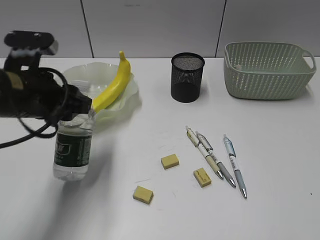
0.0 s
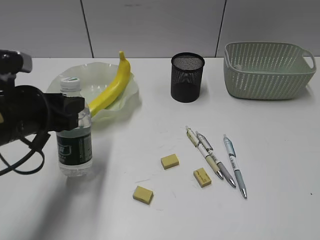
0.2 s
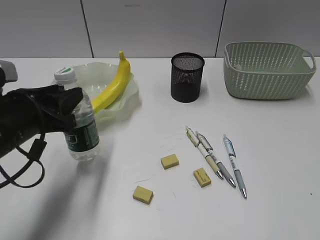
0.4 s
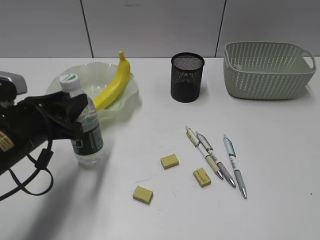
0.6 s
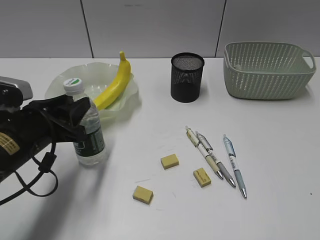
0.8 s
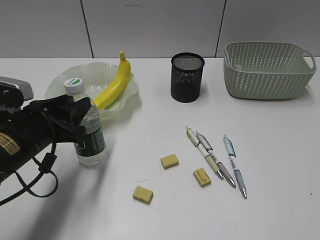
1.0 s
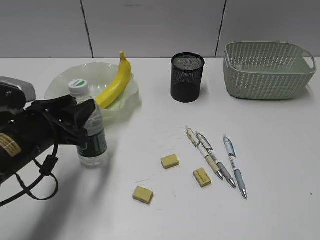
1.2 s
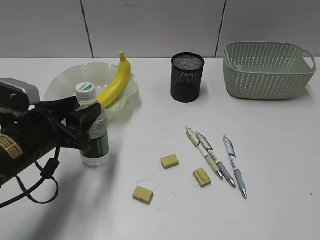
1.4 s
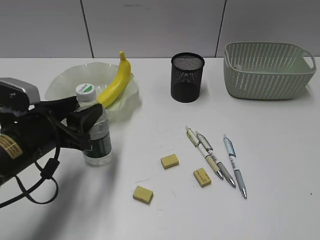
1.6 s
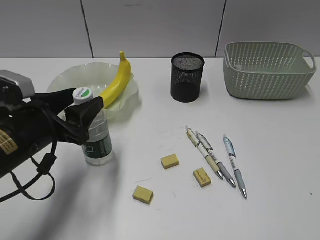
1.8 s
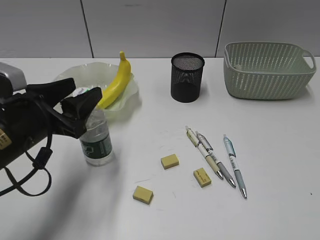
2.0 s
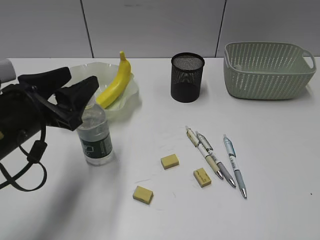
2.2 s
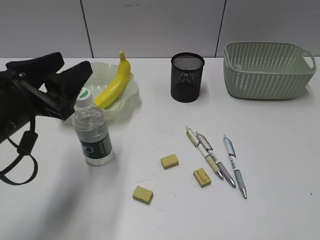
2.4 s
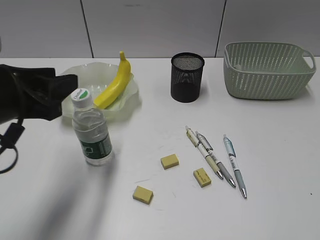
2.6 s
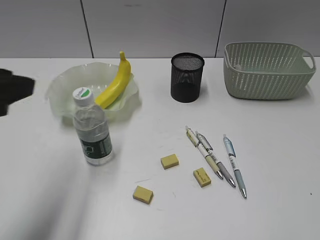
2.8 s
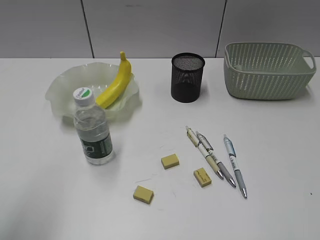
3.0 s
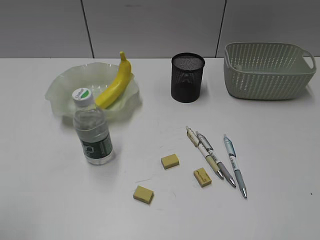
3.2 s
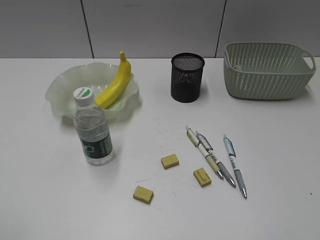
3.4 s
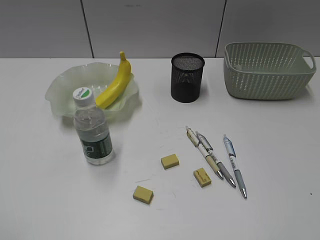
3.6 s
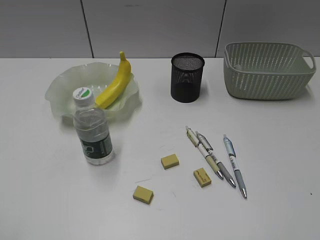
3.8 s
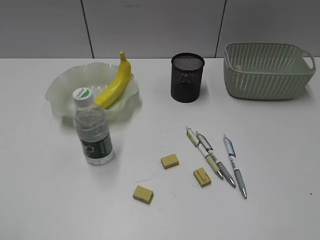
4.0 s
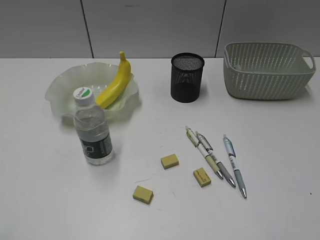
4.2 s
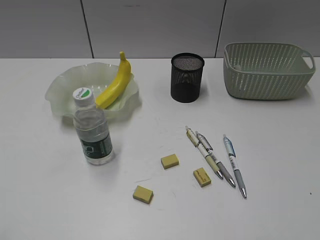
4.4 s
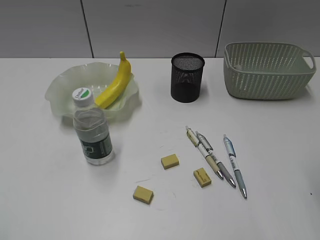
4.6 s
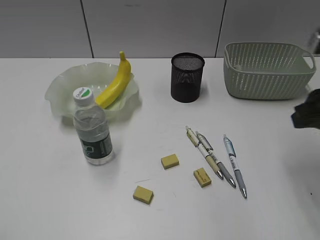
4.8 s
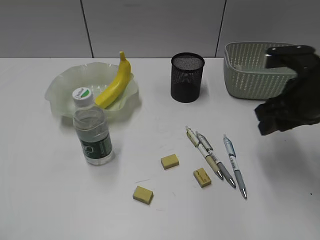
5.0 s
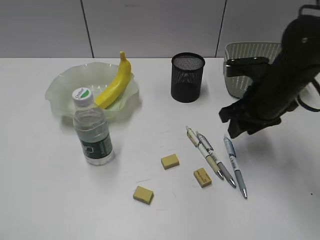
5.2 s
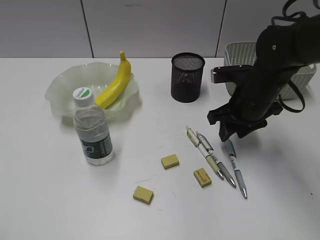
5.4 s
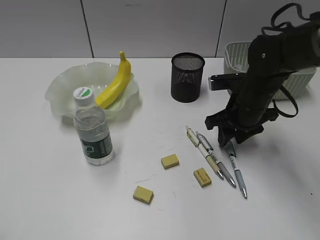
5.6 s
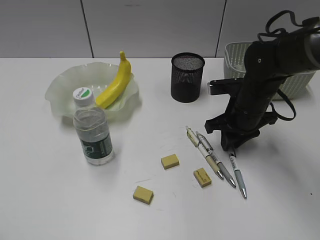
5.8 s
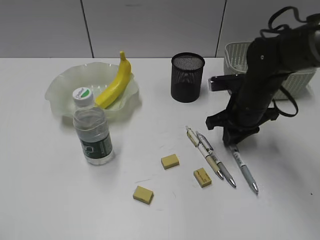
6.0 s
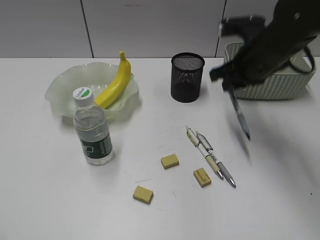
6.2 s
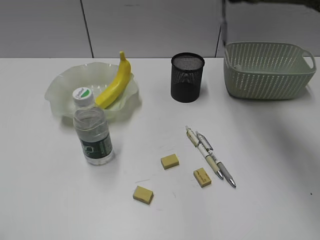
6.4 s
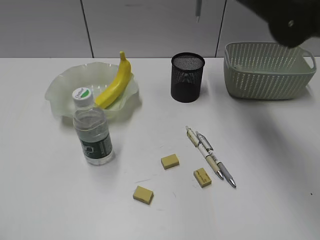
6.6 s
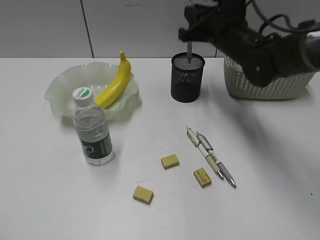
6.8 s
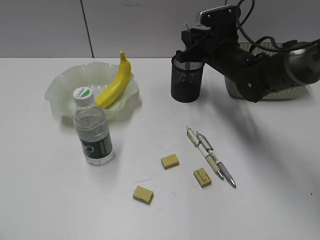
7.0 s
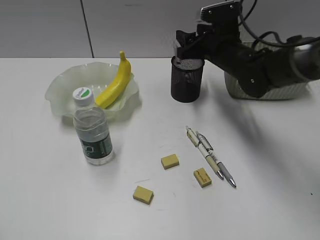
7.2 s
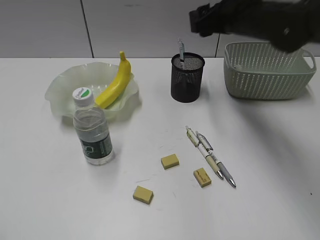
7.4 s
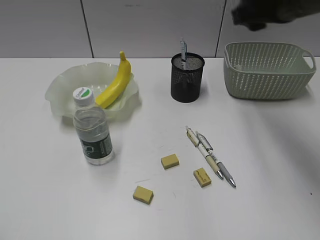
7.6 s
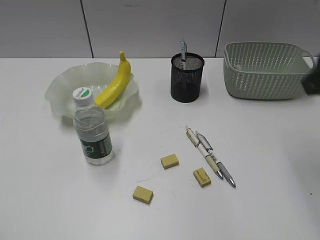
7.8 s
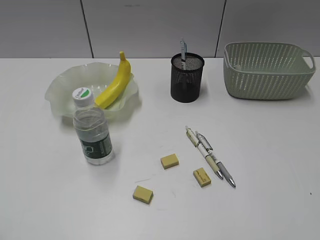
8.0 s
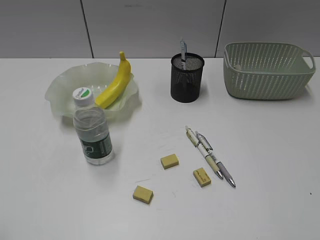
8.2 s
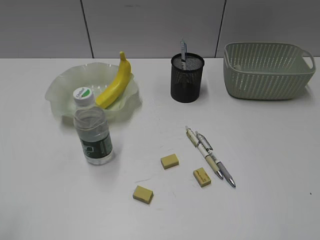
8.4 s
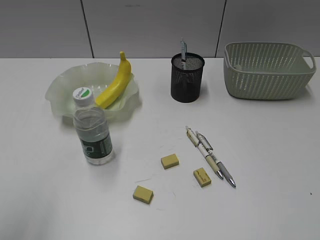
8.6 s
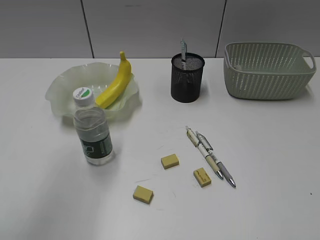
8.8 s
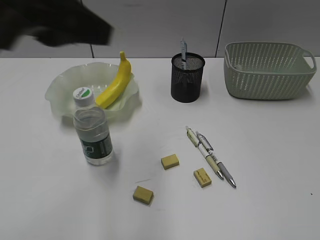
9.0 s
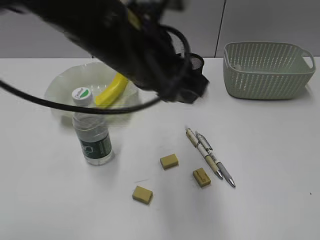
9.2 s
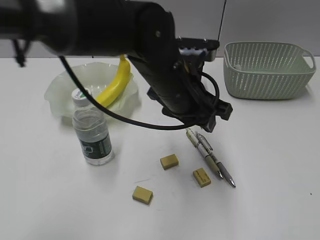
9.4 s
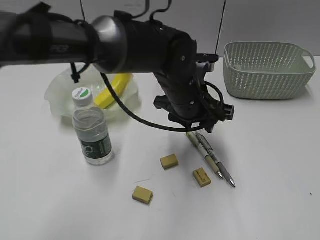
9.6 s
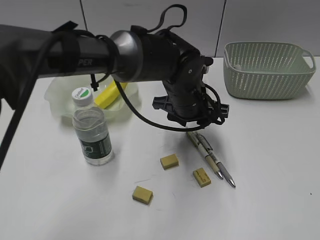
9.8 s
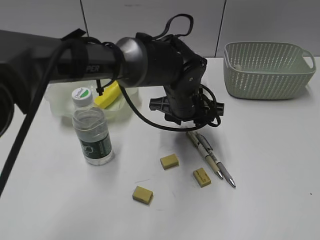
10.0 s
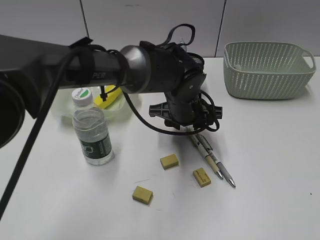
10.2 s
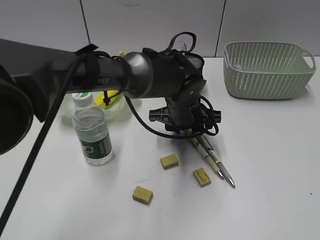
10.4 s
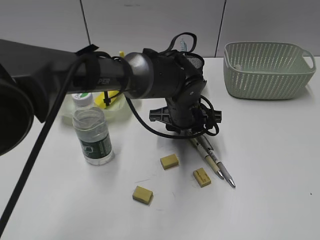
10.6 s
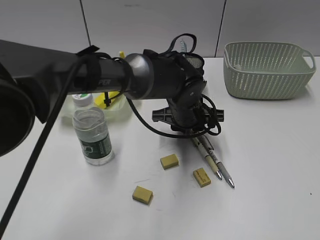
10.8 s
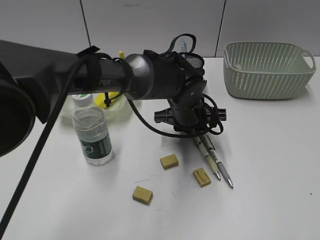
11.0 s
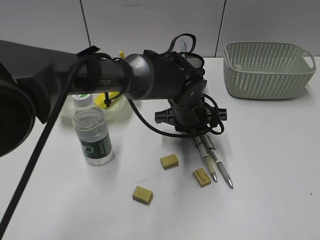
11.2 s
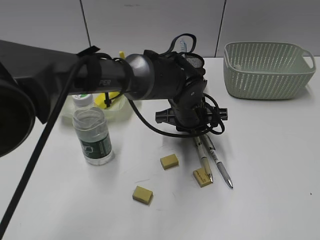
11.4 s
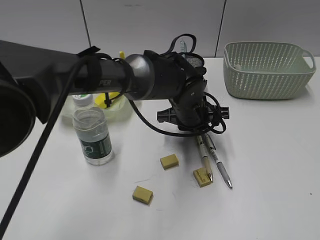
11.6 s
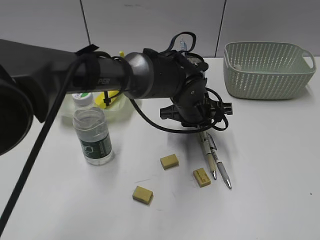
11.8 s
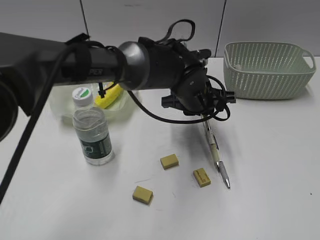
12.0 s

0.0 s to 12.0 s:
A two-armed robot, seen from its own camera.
Step, 0.0 to 2.0 s: Stand the bottle with left gripper.
Step, 2.2 to 5.8 s: Grasp the blue pen with right gripper.
Step, 6.0 to 7.2 s: Place the blue pen in pen holder with right gripper.
Step, 7.4 to 11.4 s: Grasp the yellow pen with left gripper.
0.0 to 1.6 s: The left gripper shifts some 5 cm downward.
1.6 to 3.0 s: The left gripper heads upward, backward and to the left, covering approximately 20 cm.
3.0 to 4.4 s: The left gripper heads backward and to the left, covering some 15 cm.
4.4 to 6.0 s: The right gripper travels forward, downward and to the left by approximately 35 cm, and opens, then closes again.
6.0 to 7.6 s: The right gripper moves up and down over approximately 20 cm, changing direction 2 times, and opens.
7.6 to 9.0 s: The left gripper travels forward and to the right by roughly 25 cm. The right gripper goes some 35 cm backward and to the right.
9.0 to 10.4 s: The left gripper shifts roughly 35 cm downward, to the right and forward.
10.4 to 12.0 s: The left gripper closes its fingers.

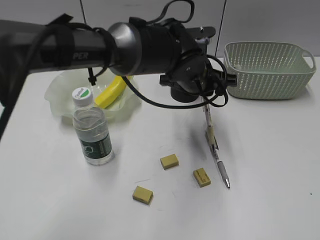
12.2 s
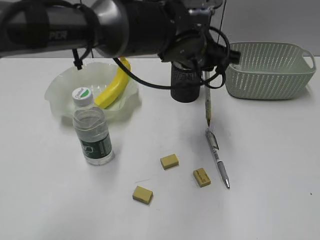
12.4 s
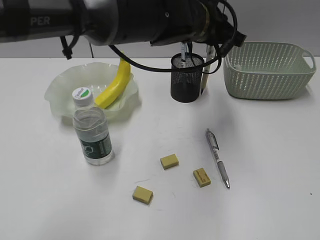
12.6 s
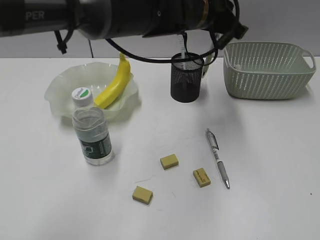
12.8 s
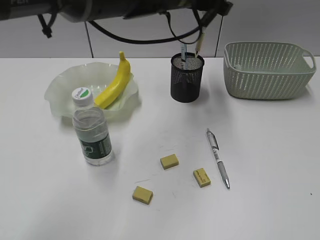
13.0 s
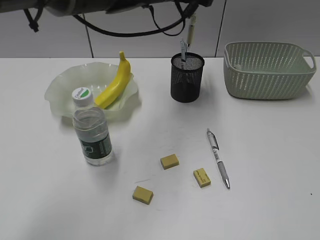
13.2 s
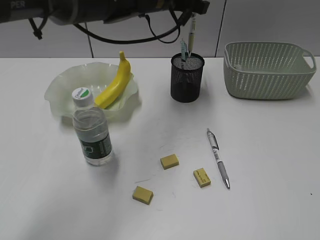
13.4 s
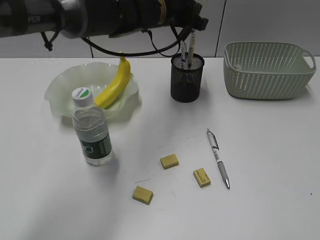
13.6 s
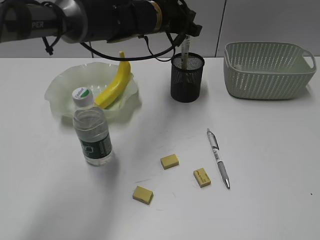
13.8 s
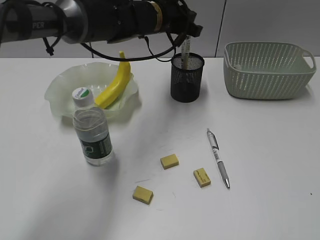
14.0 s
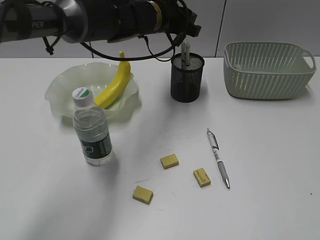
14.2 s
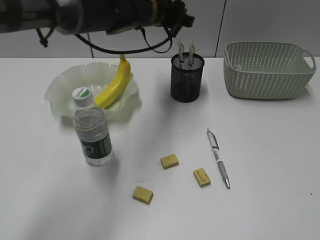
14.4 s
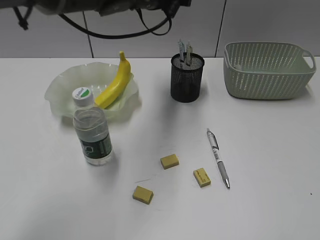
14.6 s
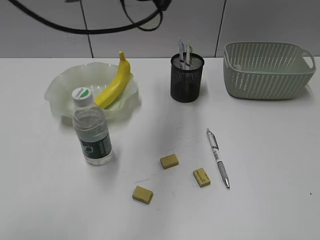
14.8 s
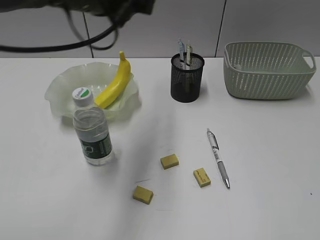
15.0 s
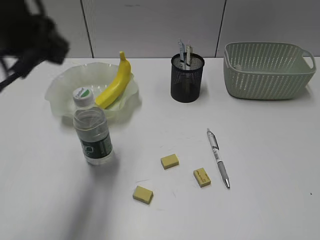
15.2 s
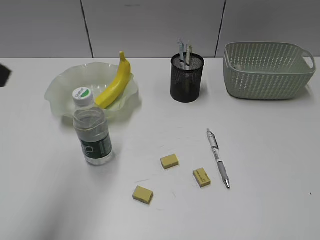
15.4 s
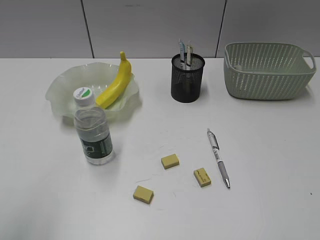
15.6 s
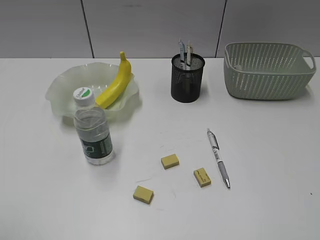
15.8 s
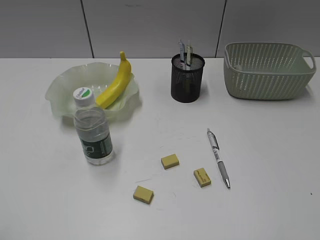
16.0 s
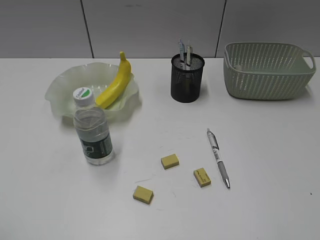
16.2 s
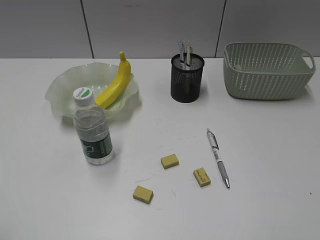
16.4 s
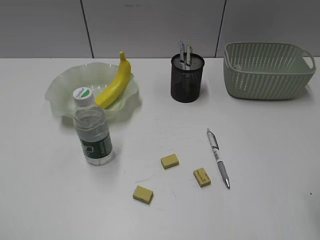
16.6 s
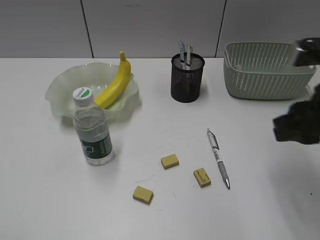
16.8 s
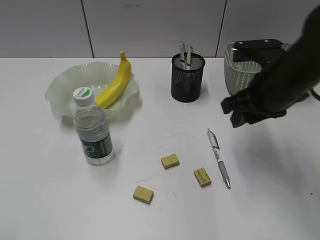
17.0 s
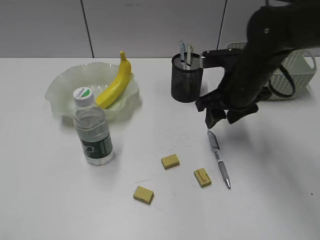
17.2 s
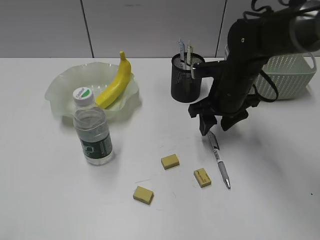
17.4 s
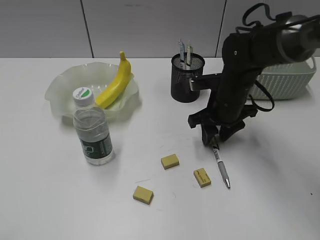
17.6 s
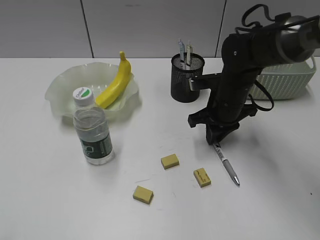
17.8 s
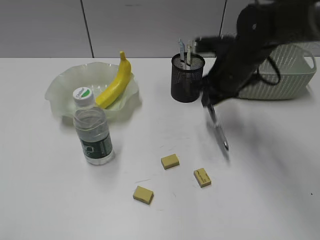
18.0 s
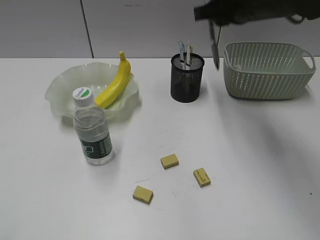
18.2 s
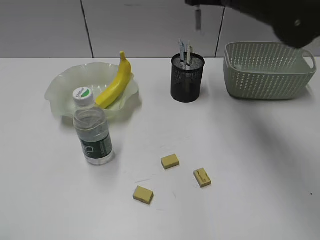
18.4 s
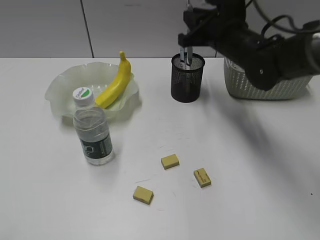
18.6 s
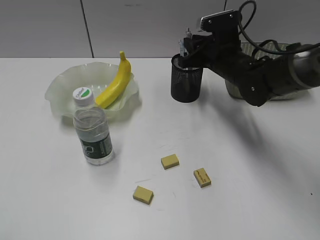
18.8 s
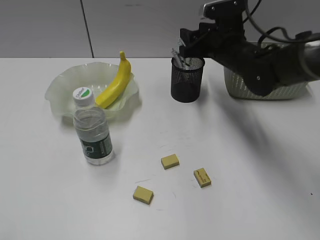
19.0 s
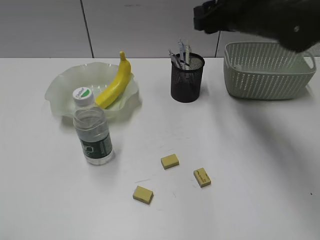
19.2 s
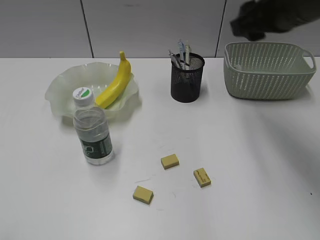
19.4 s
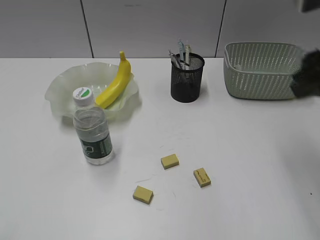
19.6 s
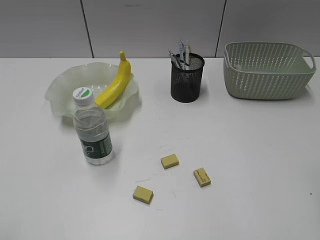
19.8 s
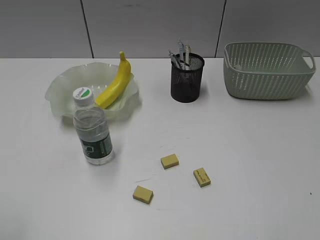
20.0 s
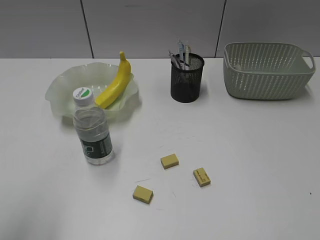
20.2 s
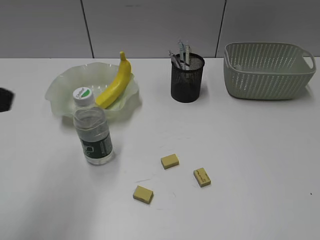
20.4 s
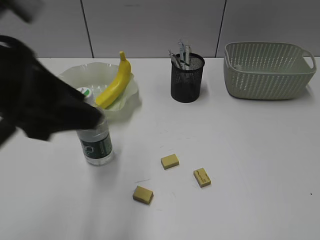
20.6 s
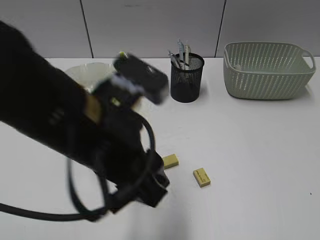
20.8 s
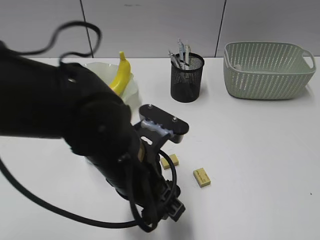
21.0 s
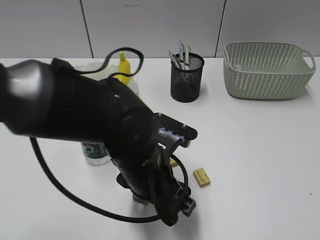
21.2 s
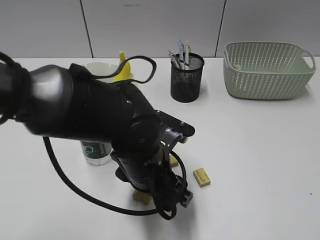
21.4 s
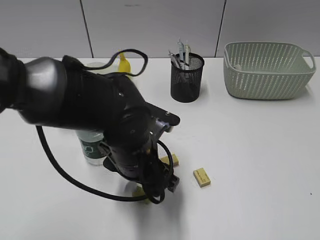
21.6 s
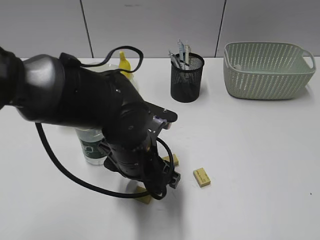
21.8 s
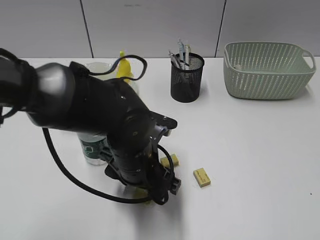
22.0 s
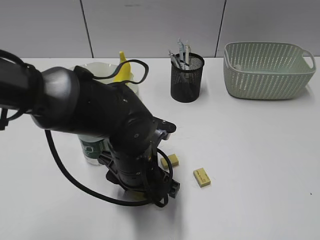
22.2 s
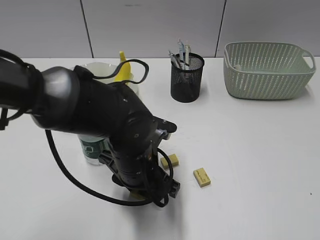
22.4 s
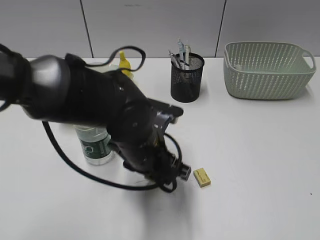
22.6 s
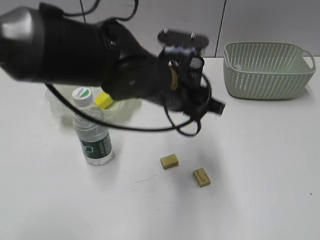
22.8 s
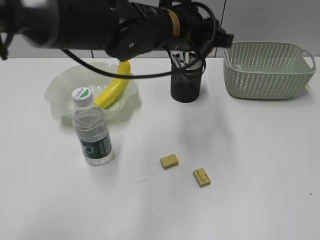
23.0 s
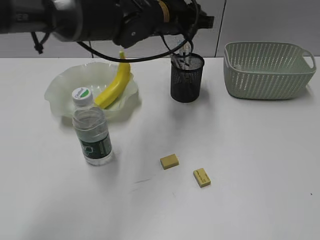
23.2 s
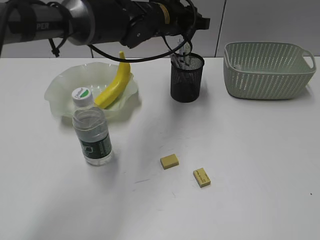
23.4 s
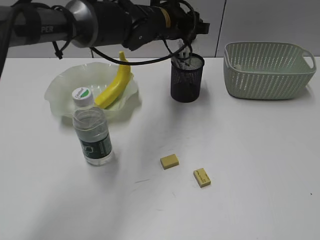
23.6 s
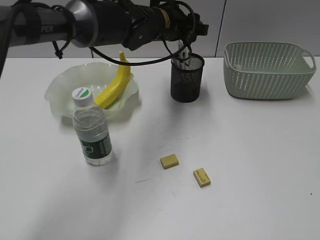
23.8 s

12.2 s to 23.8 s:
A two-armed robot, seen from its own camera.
Step, 12.2 to 14.2 s: Place the yellow pen in pen holder with left gripper.
Step, 14.4 to 17.8 s: Grasp the gray pen with right gripper.
Step, 18.0 to 19.0 s: Place the gray pen in pen holder with right gripper.
Step, 19.2 to 22.4 s: Grasp the eraser with left gripper.
12.2 to 13.6 s: The left gripper travels forward, upward and to the left by approximately 15 cm.
13.6 to 15.0 s: The left gripper goes approximately 20 cm backward, to the left and upward, and opens.
15.0 to 16.6 s: The right gripper travels forward and to the left by about 10 cm; the left gripper goes some 40 cm backward and to the left, and opens up.
16.6 to 18.0 s: The right gripper shifts approximately 30 cm forward, to the left and downward, and opens, then closes once more.
18.0 to 19.4 s: The right gripper moves up and down over roughly 15 cm, changing direction 2 times, and opens its fingers.
19.4 to 21.0 s: The left gripper goes roughly 35 cm to the right and forward; the right gripper shifts about 35 cm backward.
21.0 to 22.4 s: The left gripper moves downward and forward, roughly 10 cm, and closes up.
22.4 to 23.8 s: The left gripper heads forward and upward, covering some 25 cm, and opens.
